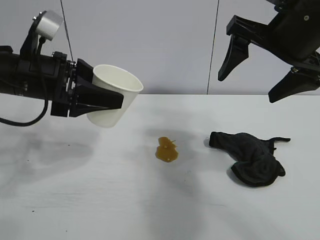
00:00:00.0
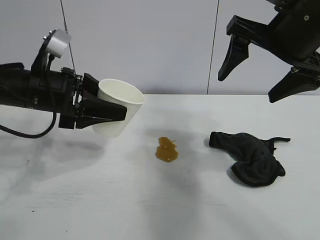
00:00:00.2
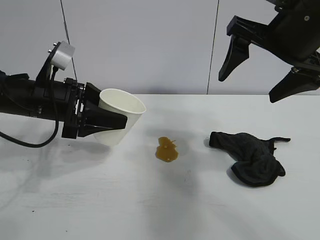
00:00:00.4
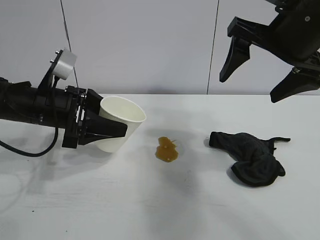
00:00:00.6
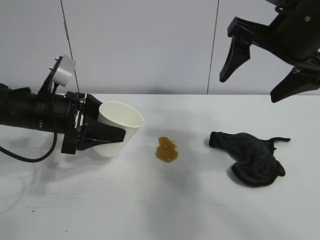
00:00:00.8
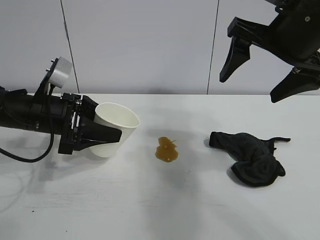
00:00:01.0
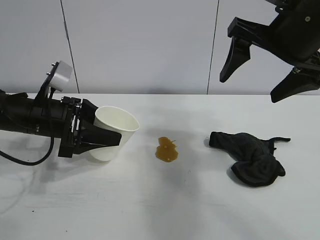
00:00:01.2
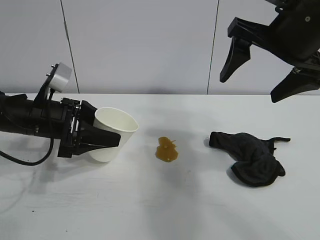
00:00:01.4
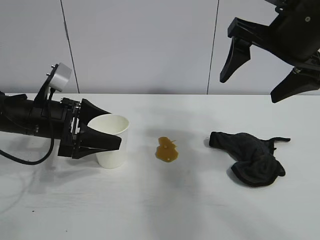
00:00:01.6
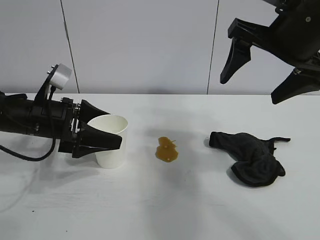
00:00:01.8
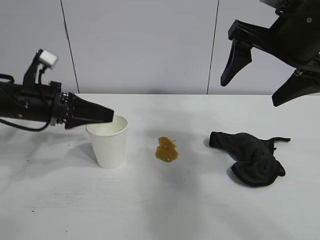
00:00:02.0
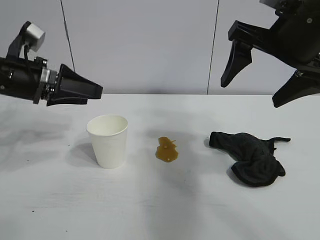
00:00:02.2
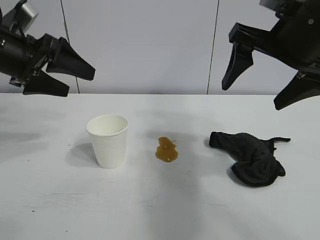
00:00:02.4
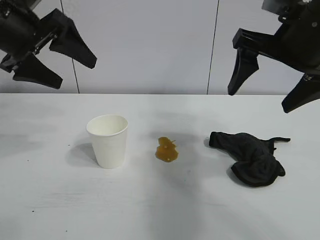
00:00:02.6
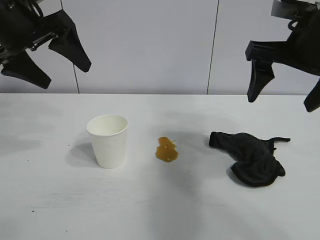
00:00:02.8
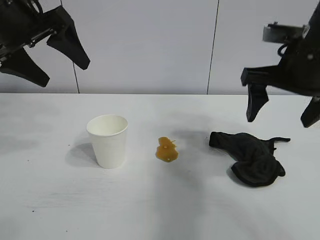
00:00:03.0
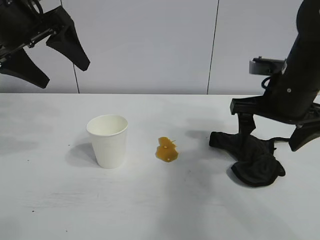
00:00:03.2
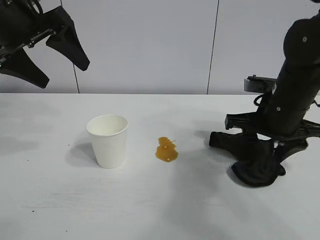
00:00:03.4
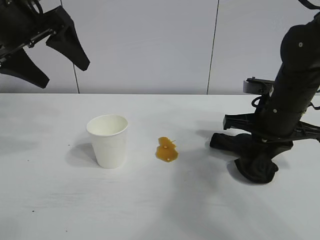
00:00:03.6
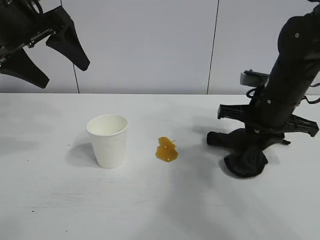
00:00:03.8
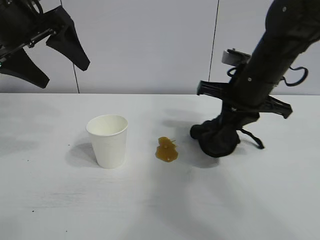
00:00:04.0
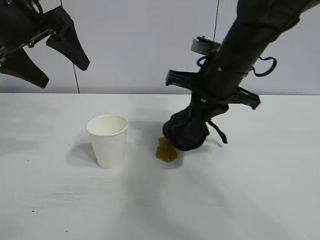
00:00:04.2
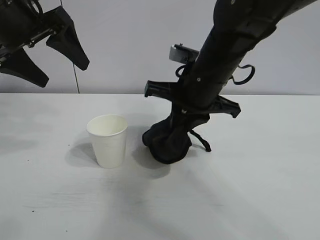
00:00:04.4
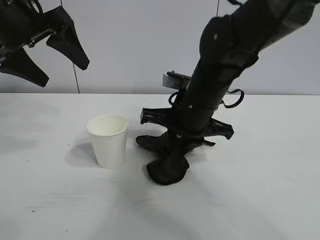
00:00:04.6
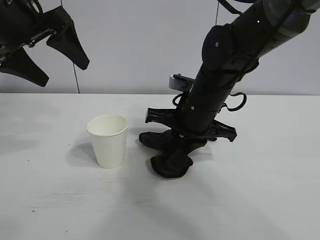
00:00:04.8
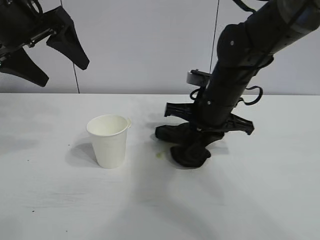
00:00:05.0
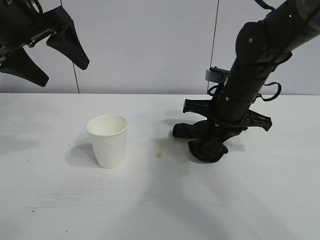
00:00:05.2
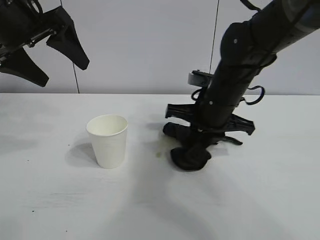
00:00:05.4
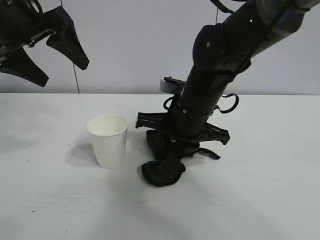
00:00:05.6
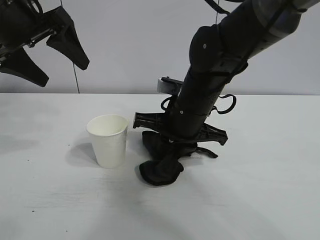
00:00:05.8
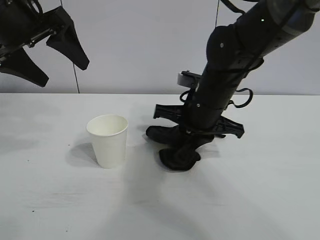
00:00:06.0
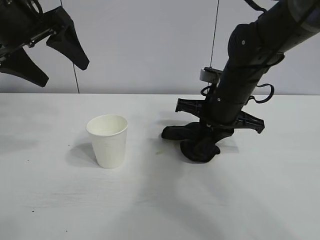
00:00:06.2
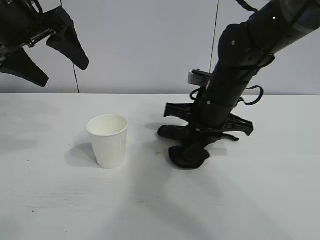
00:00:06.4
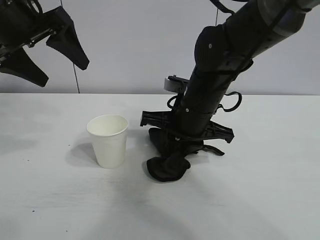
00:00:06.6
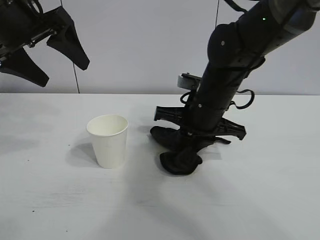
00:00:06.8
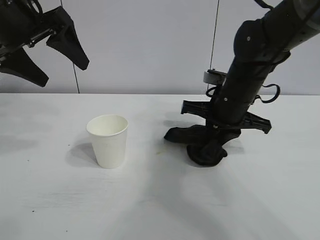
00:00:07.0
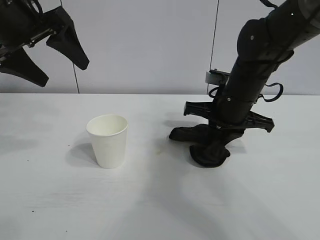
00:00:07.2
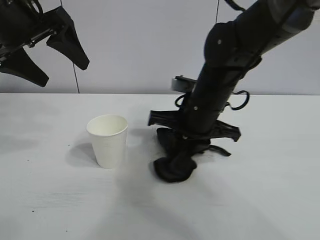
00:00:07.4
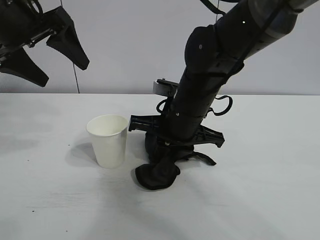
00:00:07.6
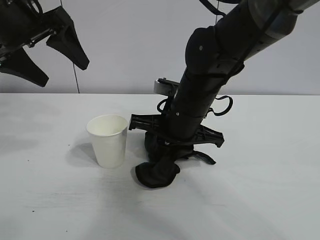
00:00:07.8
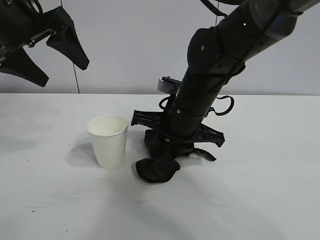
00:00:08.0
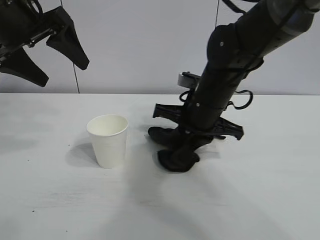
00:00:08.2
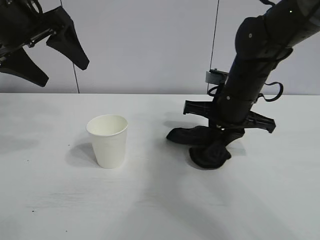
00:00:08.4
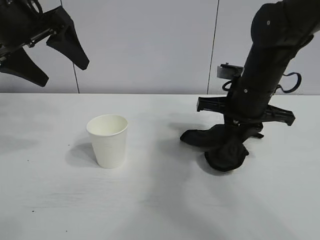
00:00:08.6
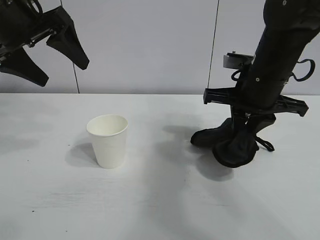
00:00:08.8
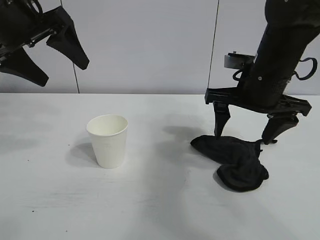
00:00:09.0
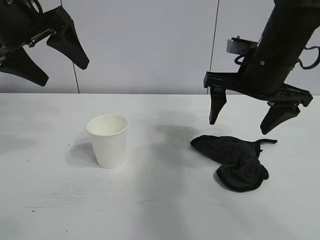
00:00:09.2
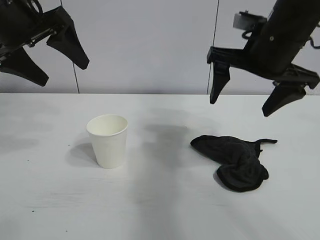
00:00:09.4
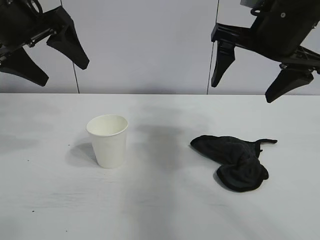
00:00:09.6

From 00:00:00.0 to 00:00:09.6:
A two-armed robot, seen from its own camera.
Task of the whole recording: the left gripper pick up the fallen cup and place it upright, the right gripper grasp the black rag and wipe the stain on the table, the right gripper put the black rag back in its original position.
Step, from 00:00:00.0 to 00:00:01.6: Stand the paper cup upright with left gripper.
Step, from 00:00:01.8 to 00:00:03.4: Grasp the rag with right gripper.
Step, from 00:00:03.6 to 00:00:08.2: Wipe the stains off the table with the rag with right gripper.
Step, from 00:00:08.4 to 00:00:09.0: Place the rag on the table with right gripper.
